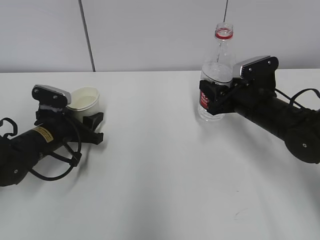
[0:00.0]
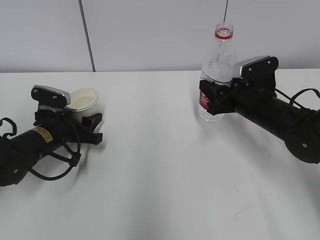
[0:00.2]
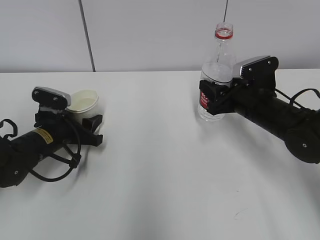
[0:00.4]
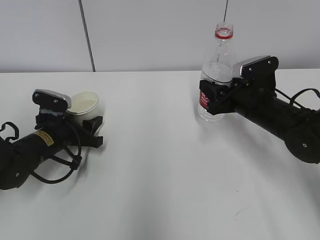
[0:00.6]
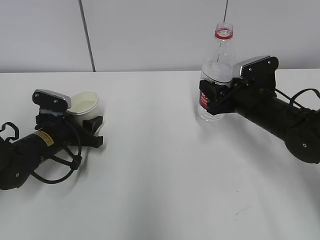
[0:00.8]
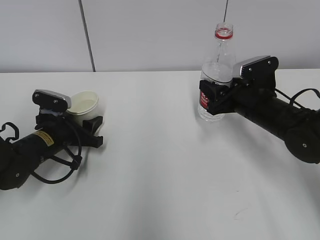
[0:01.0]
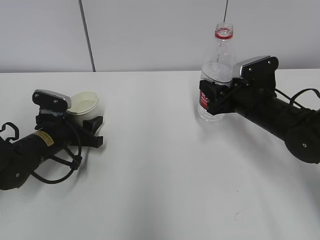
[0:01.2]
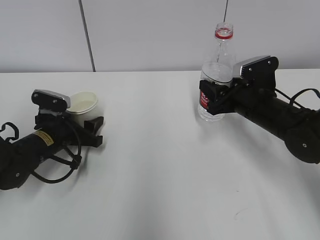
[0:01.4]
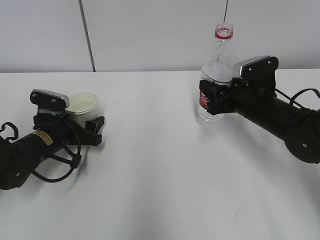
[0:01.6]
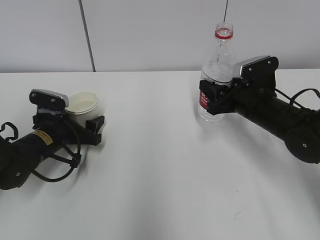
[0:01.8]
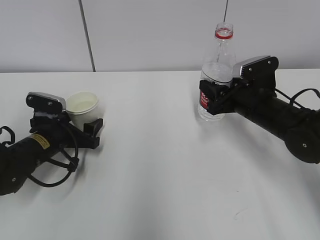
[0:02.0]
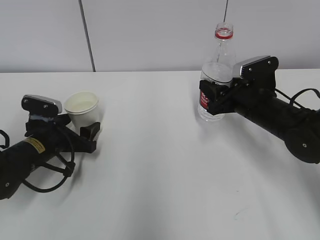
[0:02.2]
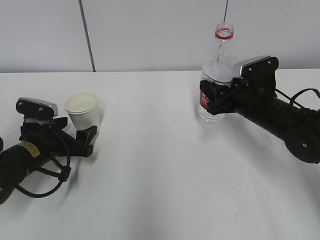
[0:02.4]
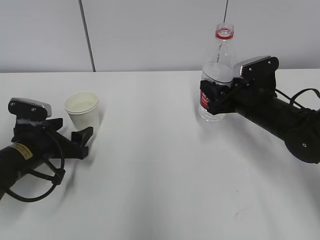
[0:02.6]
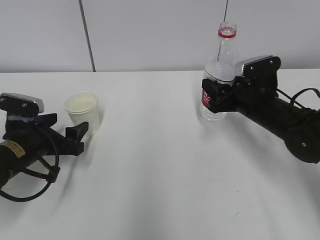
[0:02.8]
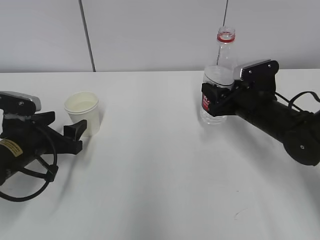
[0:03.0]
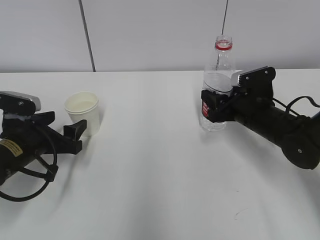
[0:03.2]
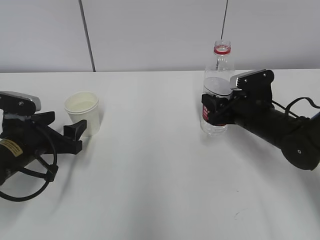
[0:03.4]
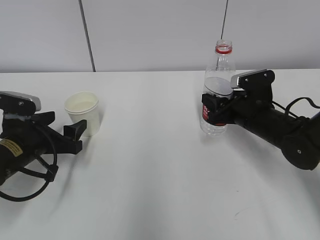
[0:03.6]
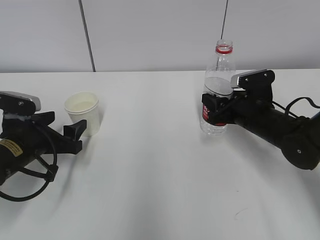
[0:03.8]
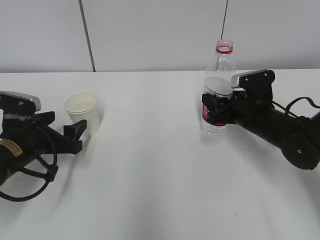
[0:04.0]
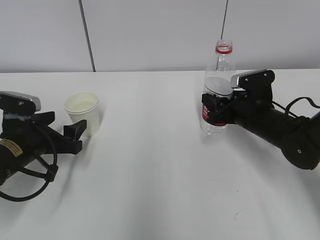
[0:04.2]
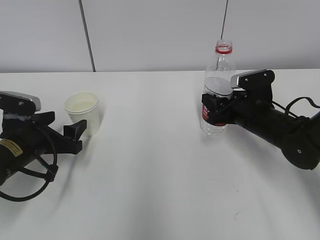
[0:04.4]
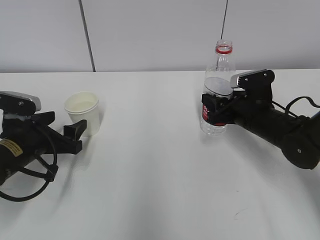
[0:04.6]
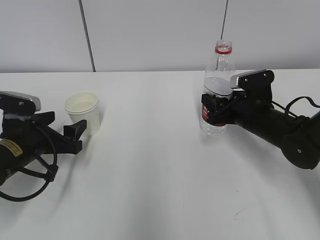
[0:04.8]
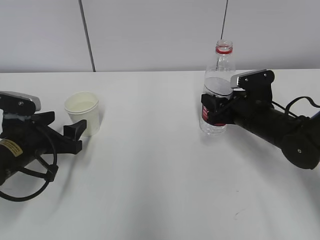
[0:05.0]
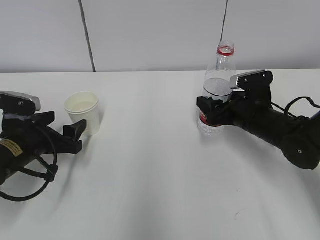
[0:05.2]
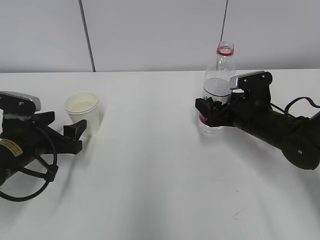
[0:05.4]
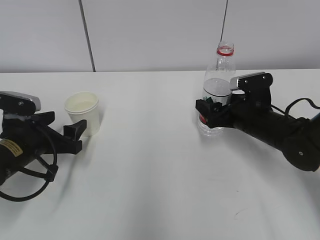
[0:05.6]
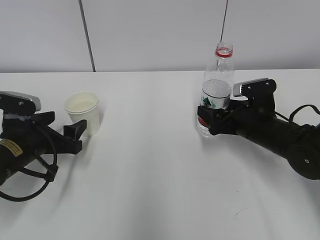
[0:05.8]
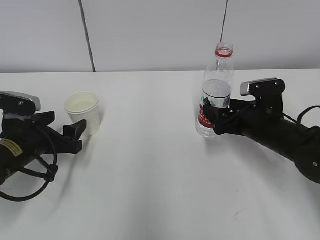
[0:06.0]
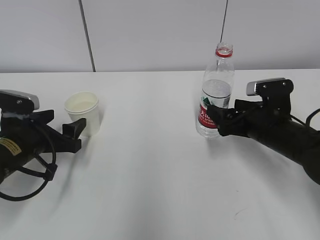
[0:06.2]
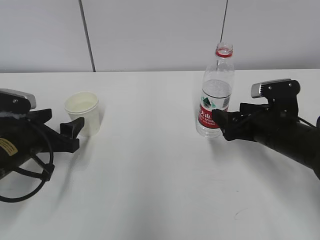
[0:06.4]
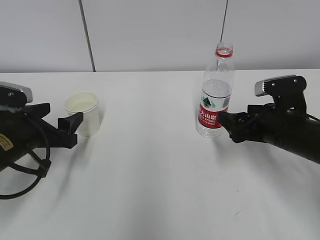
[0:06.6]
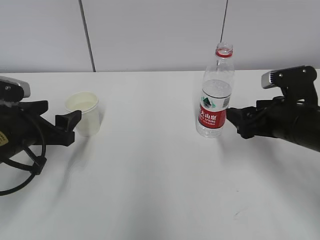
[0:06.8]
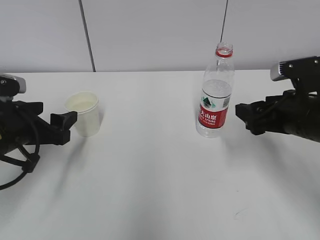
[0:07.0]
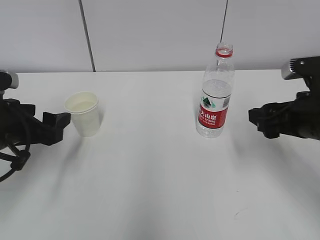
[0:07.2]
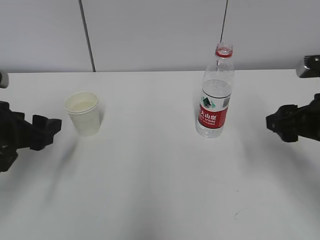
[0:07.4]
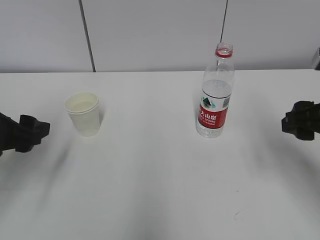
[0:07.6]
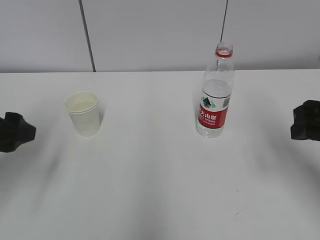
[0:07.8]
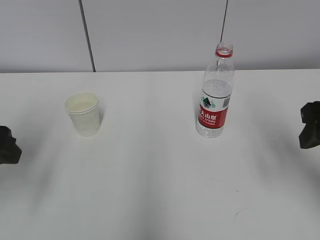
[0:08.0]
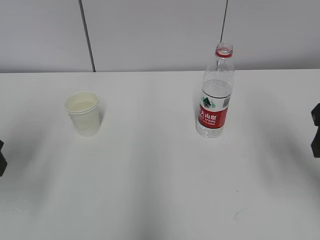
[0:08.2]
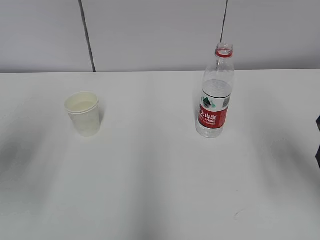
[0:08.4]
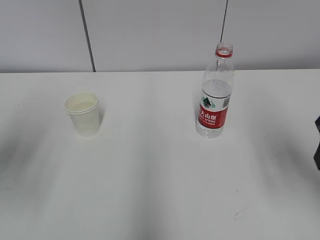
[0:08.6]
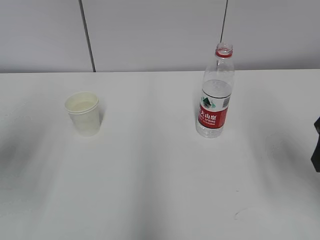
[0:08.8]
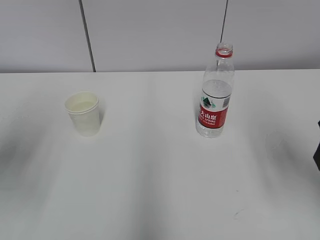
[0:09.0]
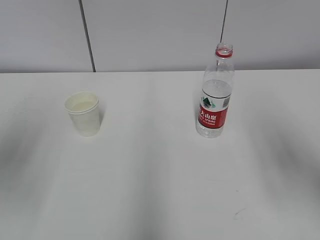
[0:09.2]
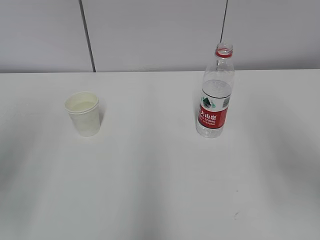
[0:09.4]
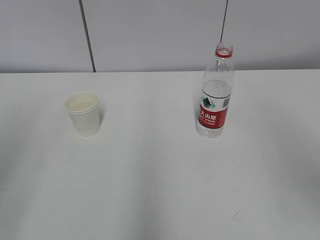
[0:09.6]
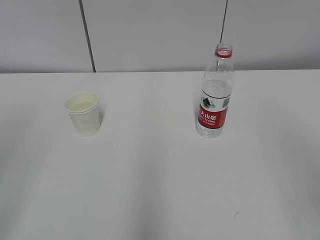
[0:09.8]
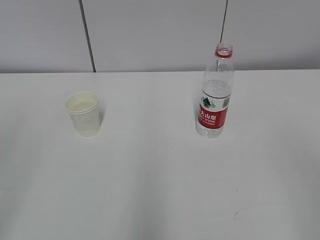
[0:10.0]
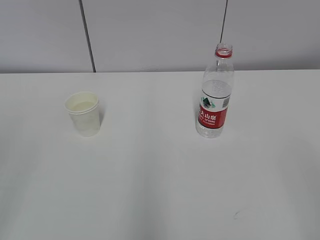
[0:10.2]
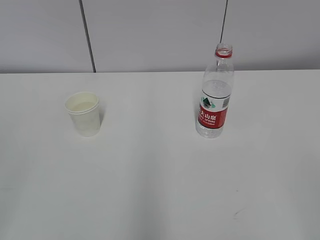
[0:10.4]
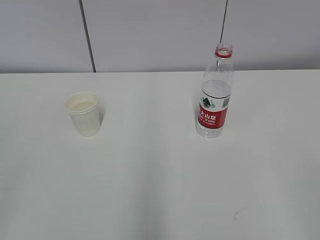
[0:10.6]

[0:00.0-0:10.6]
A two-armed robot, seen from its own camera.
0:00.0 to 0:01.6: The left gripper opens up.
0:01.6 to 0:03.0: The left gripper is displaced backward by roughly 5 cm.
0:03.0 to 0:04.6: The grippers stay close to where they were, moving slightly.
0:04.6 to 0:06.0: The right gripper opens.
0:06.0 to 0:07.6: The grippers both shift upward and backward by approximately 15 cm. The right gripper closes its fingers.
0:07.6 to 0:09.0: The left gripper goes approximately 10 cm upward. Meanwhile the right gripper heads upward, covering some 5 cm.
0:09.0 to 0:10.6: The grippers both shift backward by roughly 25 cm.

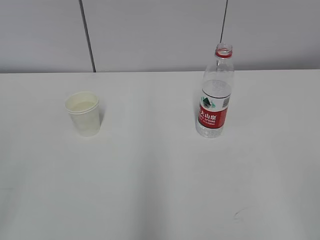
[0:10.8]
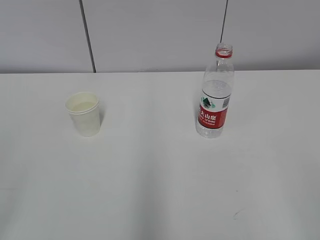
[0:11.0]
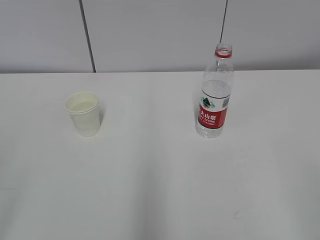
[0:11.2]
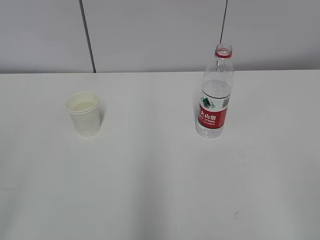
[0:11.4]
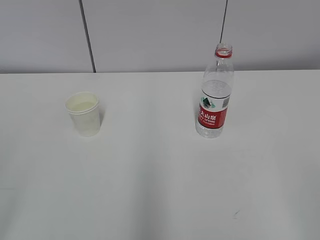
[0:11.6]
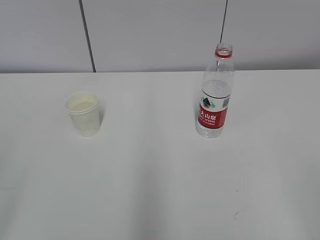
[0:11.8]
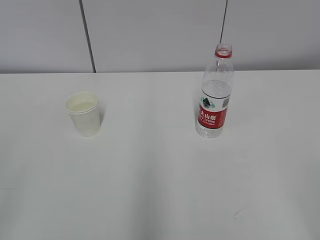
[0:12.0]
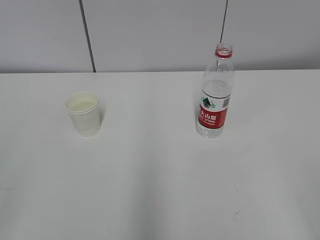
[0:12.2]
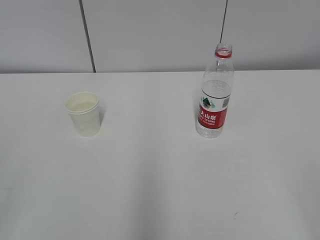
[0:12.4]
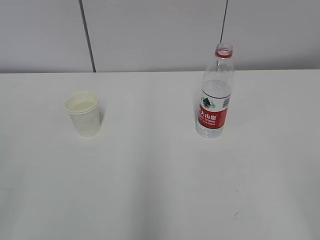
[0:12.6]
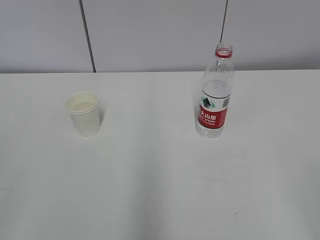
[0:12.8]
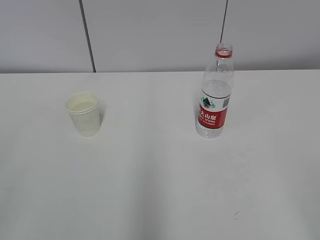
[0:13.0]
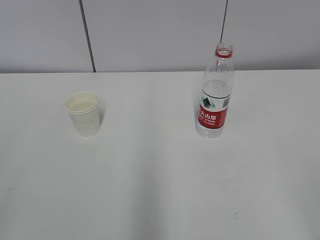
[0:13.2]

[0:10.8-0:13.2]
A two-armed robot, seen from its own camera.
0:12.0 to 0:13.2: The two grippers keep their place.

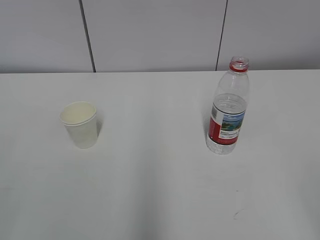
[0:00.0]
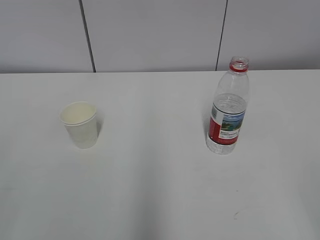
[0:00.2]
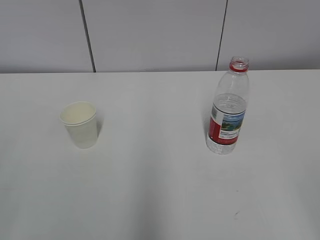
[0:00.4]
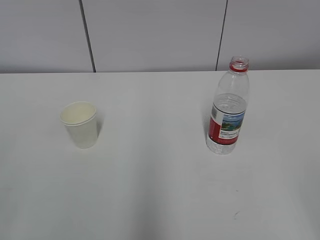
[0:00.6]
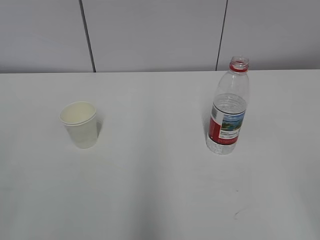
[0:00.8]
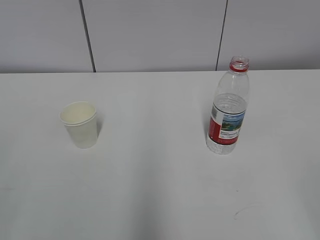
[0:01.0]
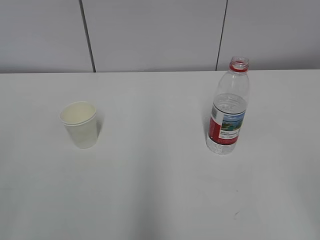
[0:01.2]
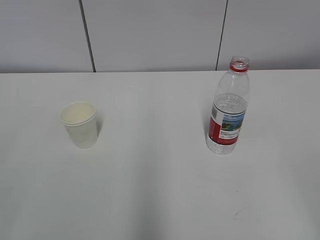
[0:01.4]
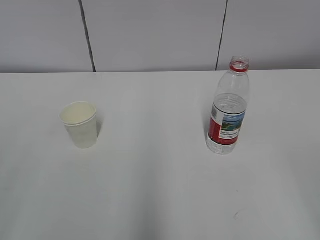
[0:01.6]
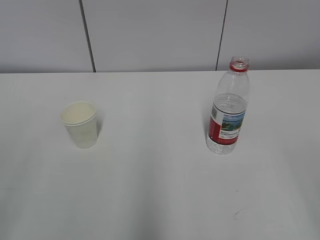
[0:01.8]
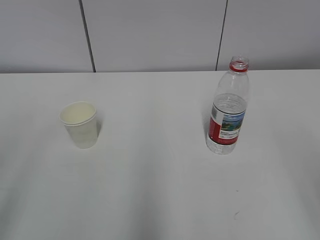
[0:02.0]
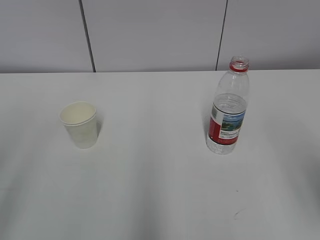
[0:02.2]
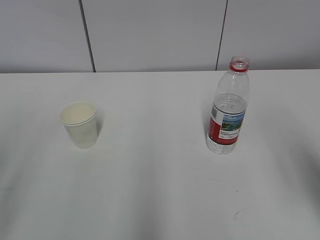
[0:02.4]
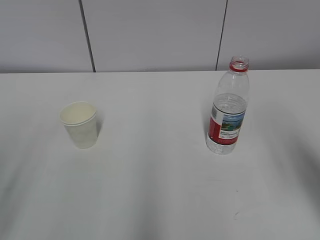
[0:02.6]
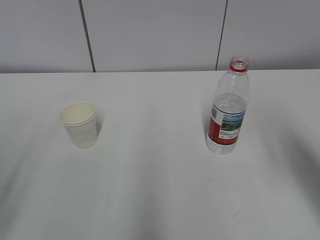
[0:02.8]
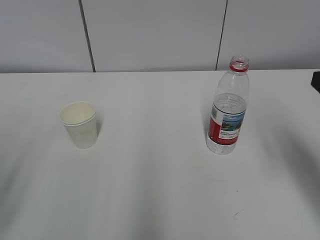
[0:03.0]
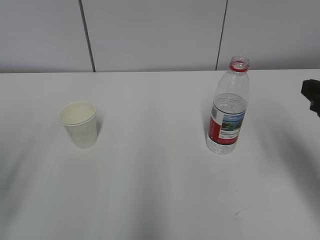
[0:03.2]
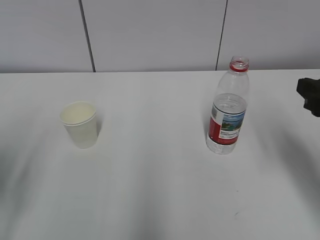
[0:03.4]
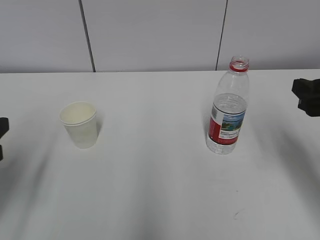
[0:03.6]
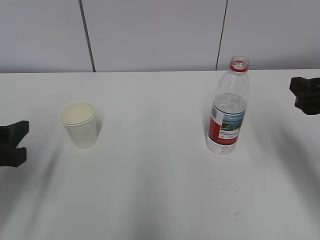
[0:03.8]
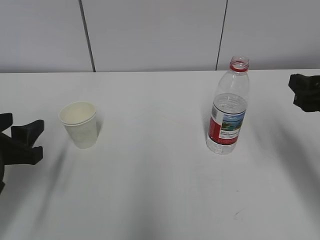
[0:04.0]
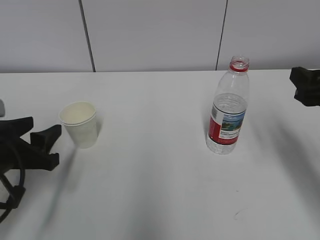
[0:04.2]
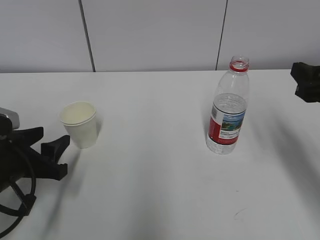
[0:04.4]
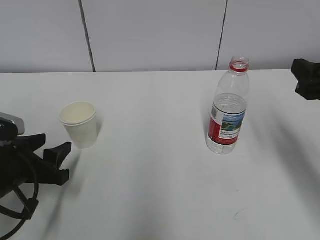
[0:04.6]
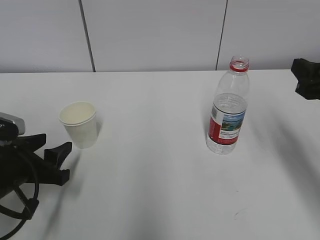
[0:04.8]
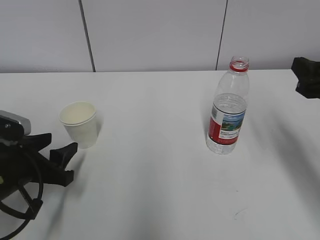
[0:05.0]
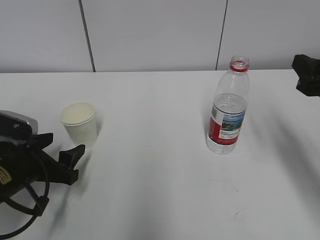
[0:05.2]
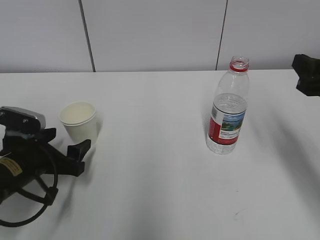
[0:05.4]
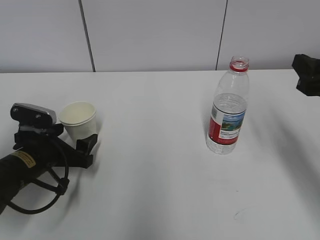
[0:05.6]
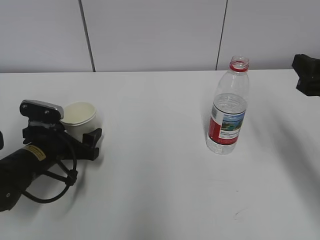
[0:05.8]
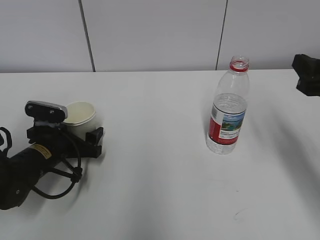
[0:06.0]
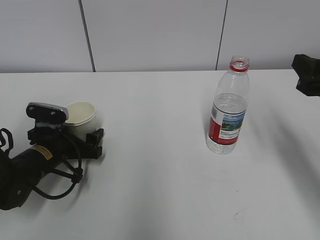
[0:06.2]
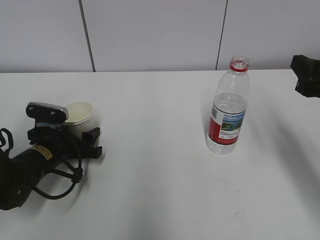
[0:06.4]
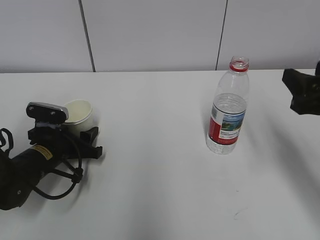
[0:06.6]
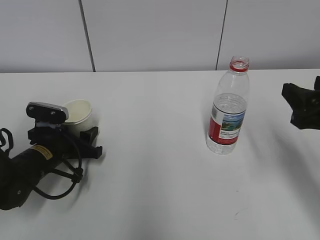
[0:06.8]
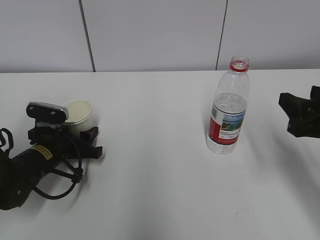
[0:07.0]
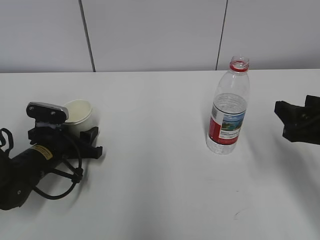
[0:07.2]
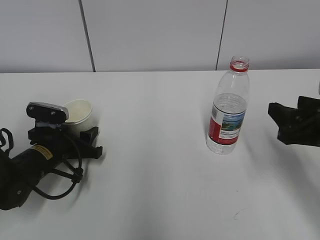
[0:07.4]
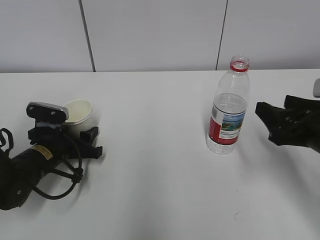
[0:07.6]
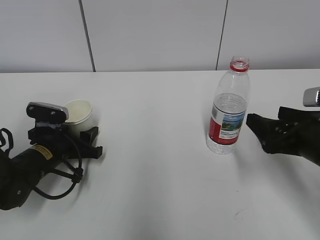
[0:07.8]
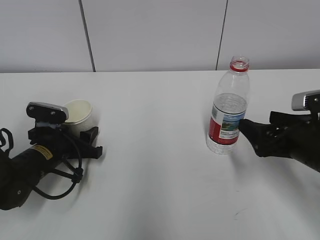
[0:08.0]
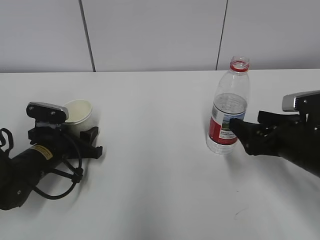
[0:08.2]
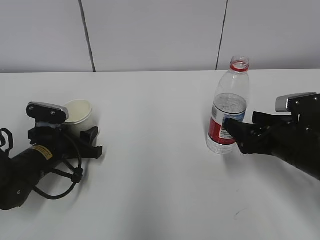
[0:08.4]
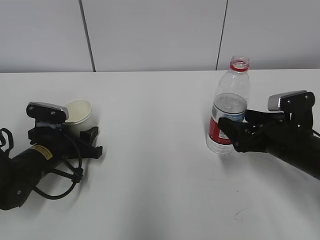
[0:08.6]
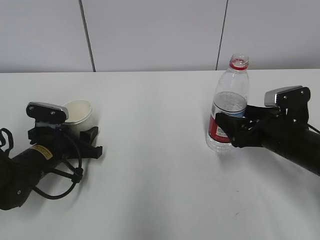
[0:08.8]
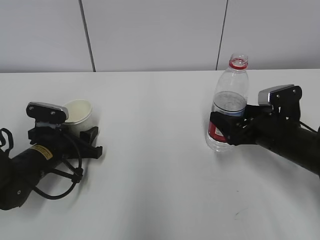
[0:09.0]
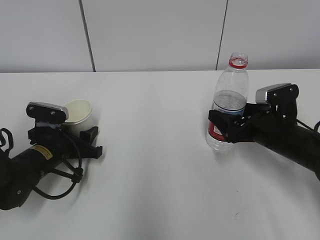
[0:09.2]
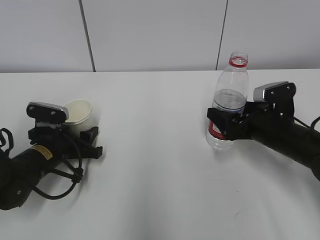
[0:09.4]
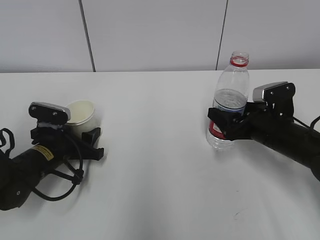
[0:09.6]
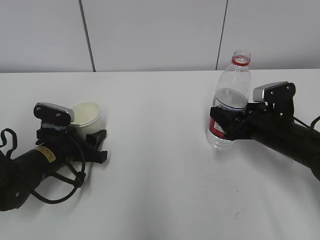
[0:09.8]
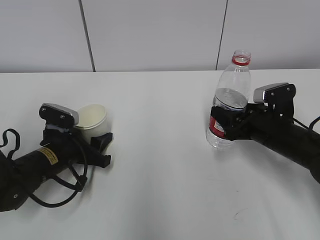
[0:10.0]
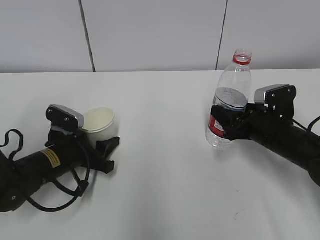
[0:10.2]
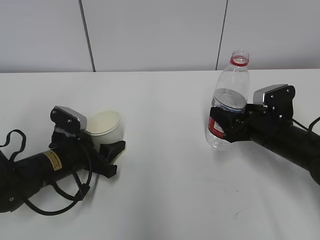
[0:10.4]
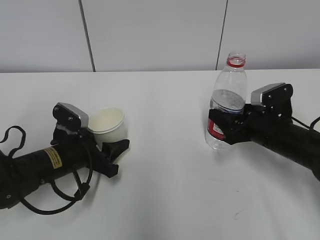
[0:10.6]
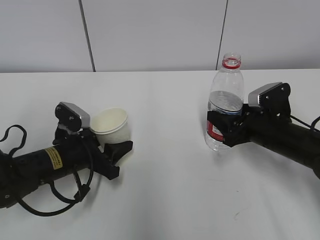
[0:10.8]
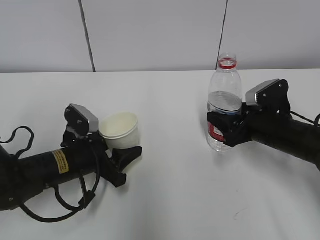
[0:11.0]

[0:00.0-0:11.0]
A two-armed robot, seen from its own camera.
Step, 0:00.0 to 0:08.0: Grab the paper cup with the left hand.
Step, 0:08.2 to 0:08.8: Grab the water bottle with the right hand.
0:01.6 to 0:03.2: The right gripper shifts about 20 cm forward.
0:03.2 to 0:04.8: The left gripper goes roughly 20 cm downward, forward and to the right.
0:04.8 to 0:06.2: The left gripper is displaced forward and downward by some 10 cm, and opens.
0:06.2 to 0:07.8: The left gripper closes up. The right gripper heads downward, covering about 10 cm, and opens.
0:07.8 to 0:09.4: The right gripper shifts roughly 10 cm forward and downward.
0:09.4 to 0:11.0: The left gripper moves some 5 cm. Meanwhile the right gripper closes.
